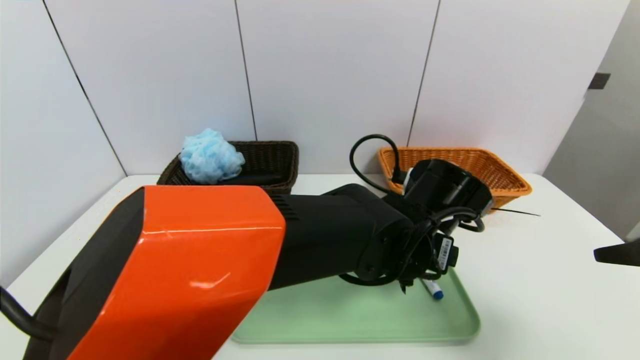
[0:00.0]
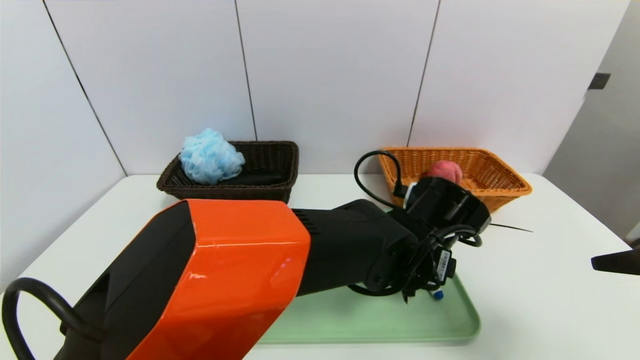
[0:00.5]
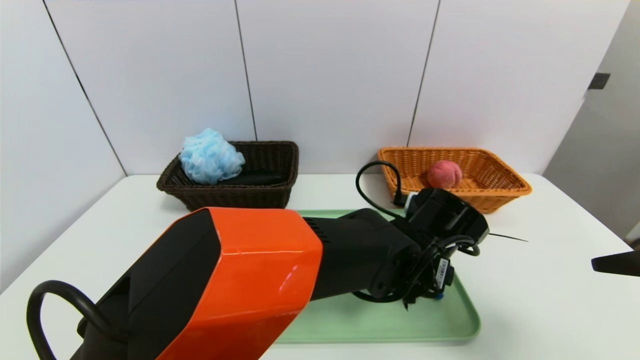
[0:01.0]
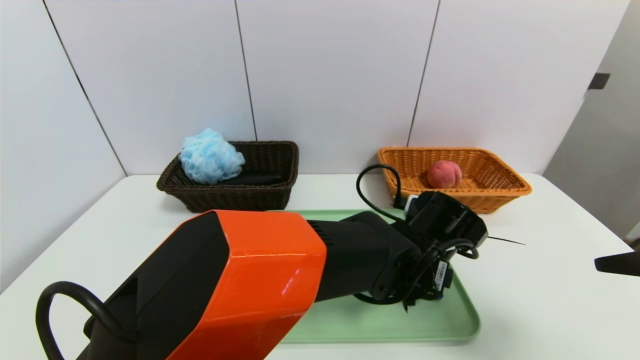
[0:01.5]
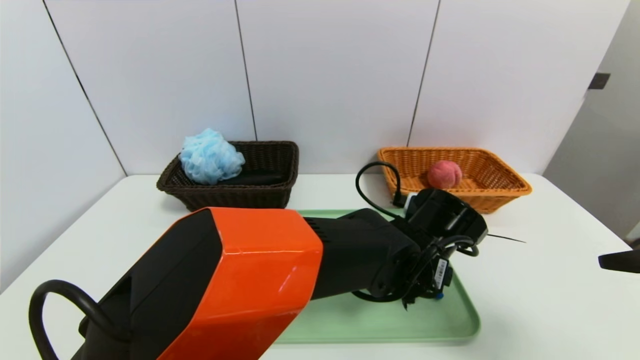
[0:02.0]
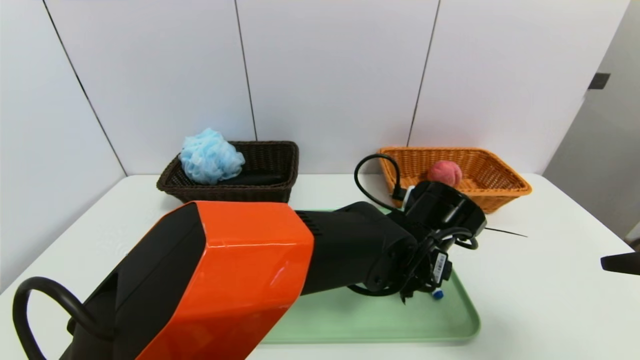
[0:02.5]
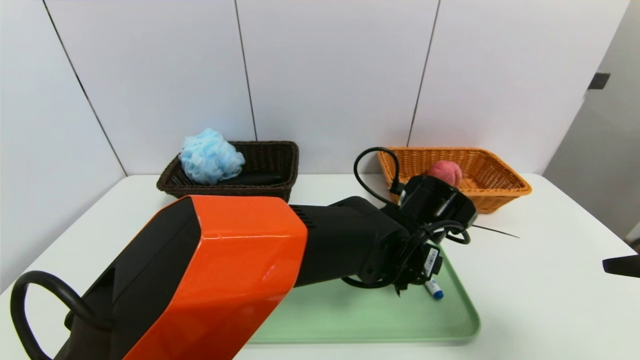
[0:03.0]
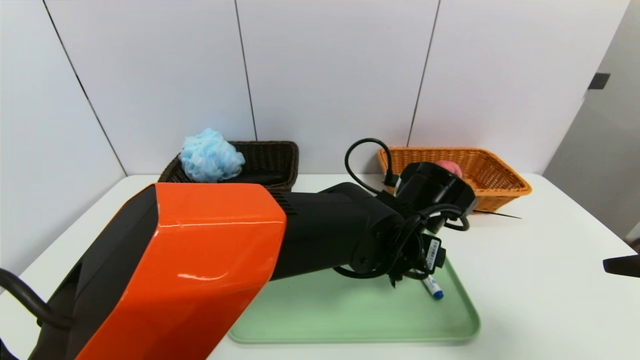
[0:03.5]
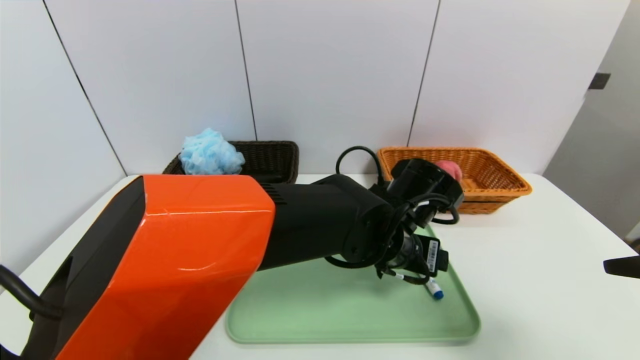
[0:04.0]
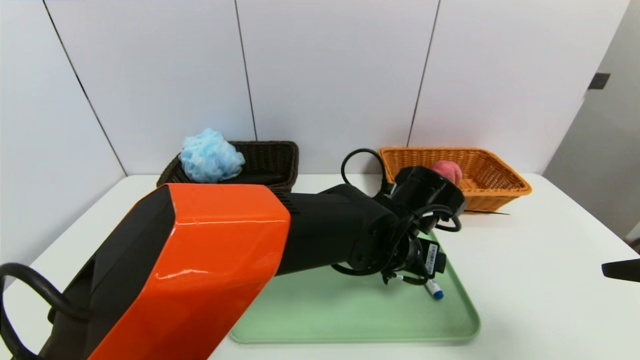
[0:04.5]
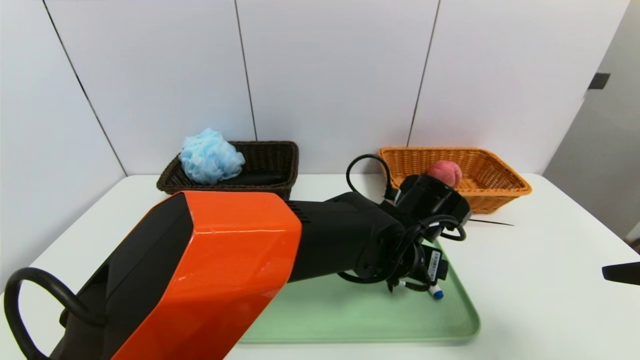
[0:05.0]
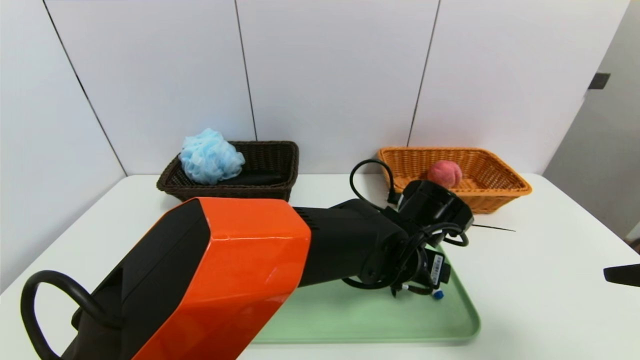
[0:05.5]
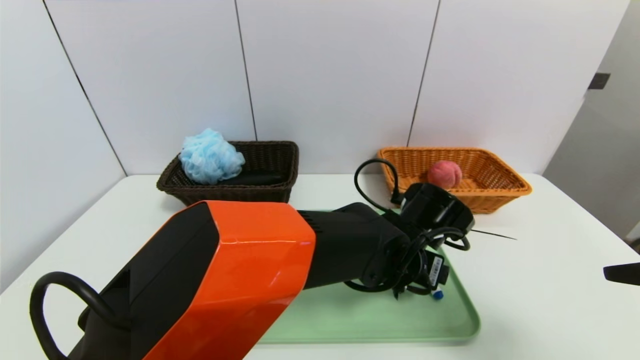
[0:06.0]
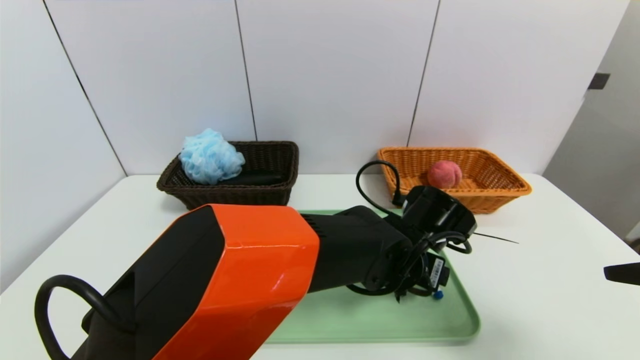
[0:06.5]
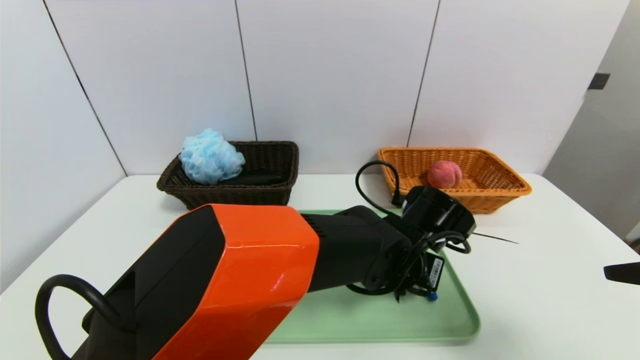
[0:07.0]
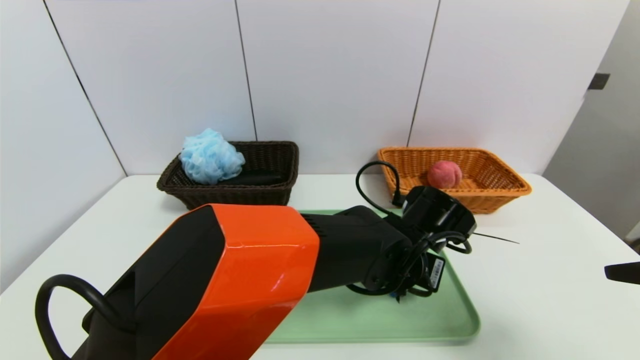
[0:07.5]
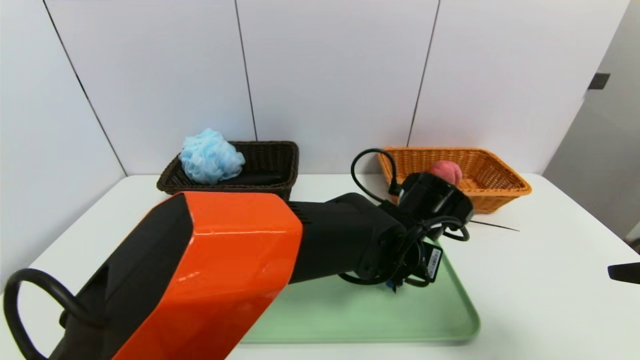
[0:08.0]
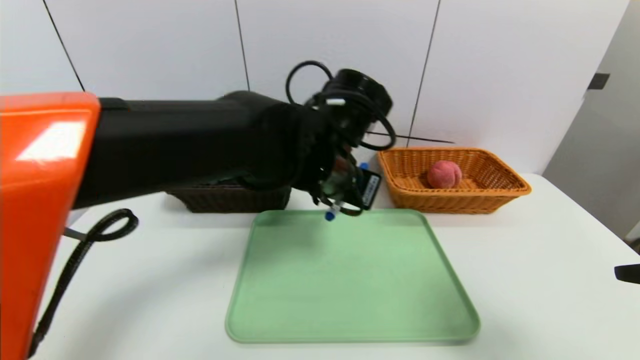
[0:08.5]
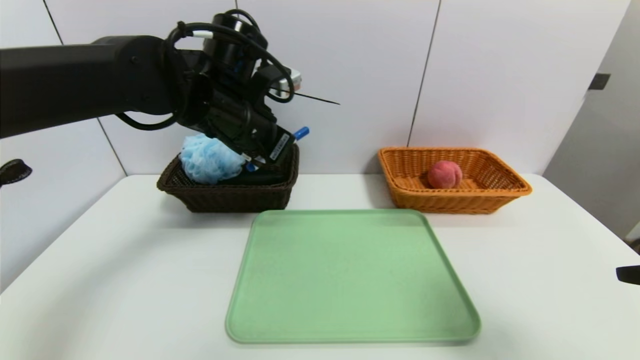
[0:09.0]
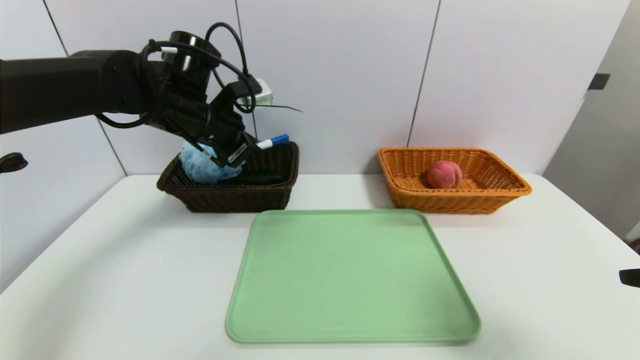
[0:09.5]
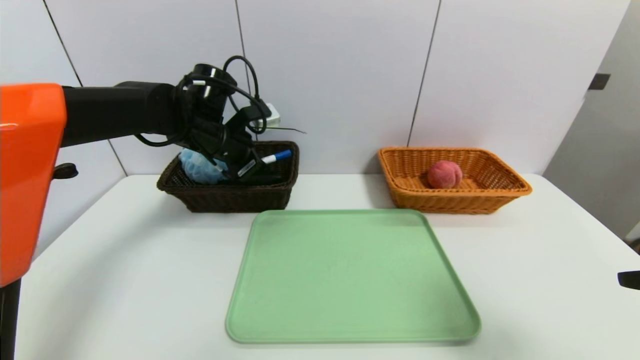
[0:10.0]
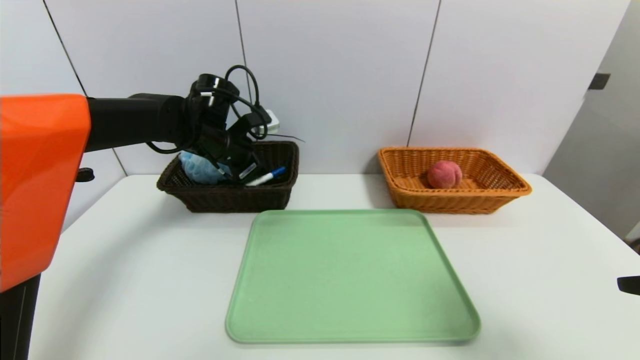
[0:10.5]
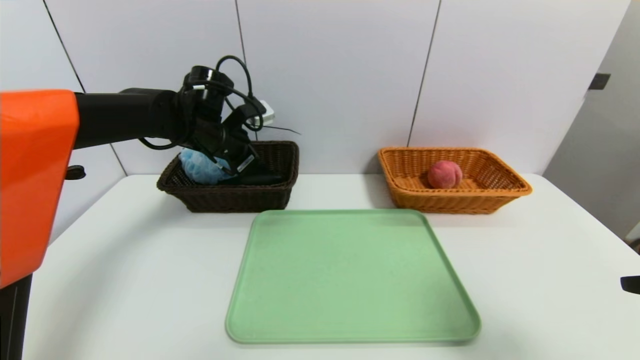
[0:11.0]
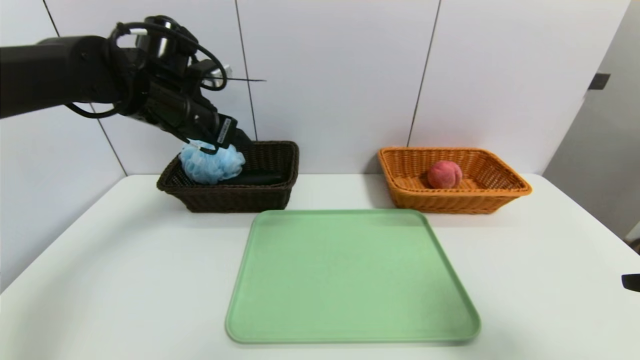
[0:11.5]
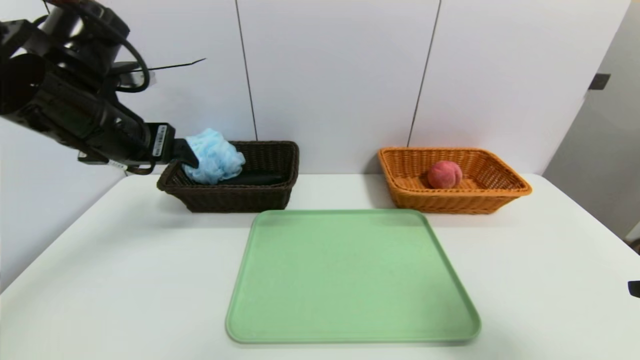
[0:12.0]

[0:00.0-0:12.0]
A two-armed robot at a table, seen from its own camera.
Task of the whole recording: place the food in the right basket with the right gripper, and place the non food items in the left basket with the left gripper.
Step, 0:00.0 to 0:11.0: Grasp the blue marker and put it in the left basket.
0:06.0 to 0:08.0: The left gripper closes its fingers.
0:08.0 to 0:10.0: The left gripper is displaced to the left and forward by about 30 cm.
0:10.0 to 0:12.0: The left gripper heads backward, upward and to the left, covering about 15 cm, and opens.

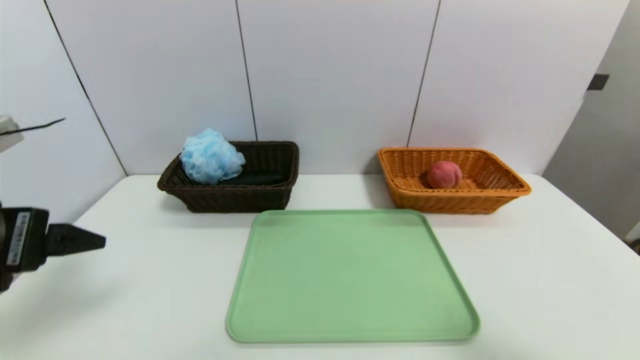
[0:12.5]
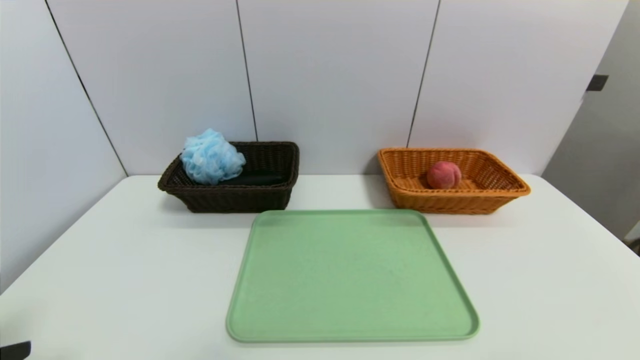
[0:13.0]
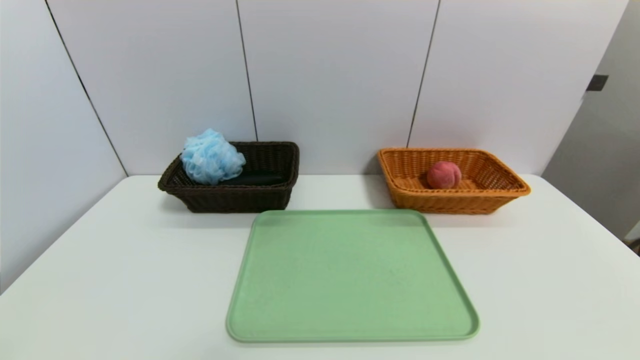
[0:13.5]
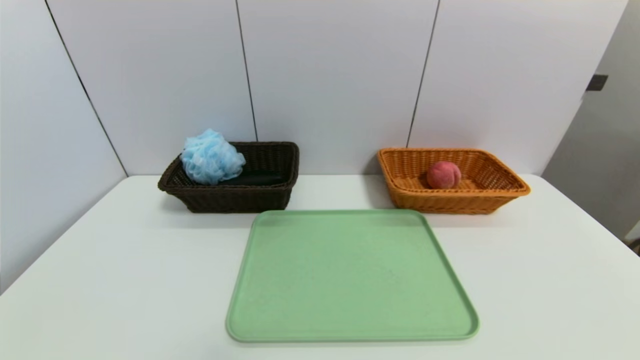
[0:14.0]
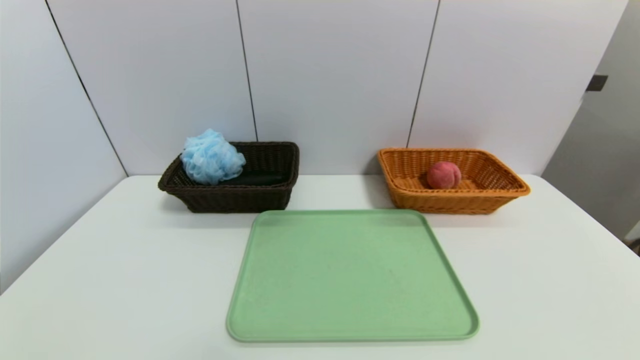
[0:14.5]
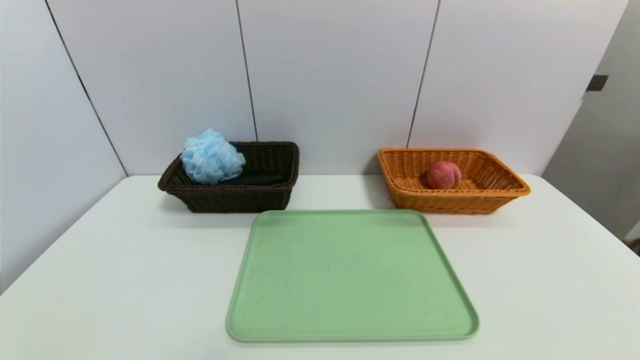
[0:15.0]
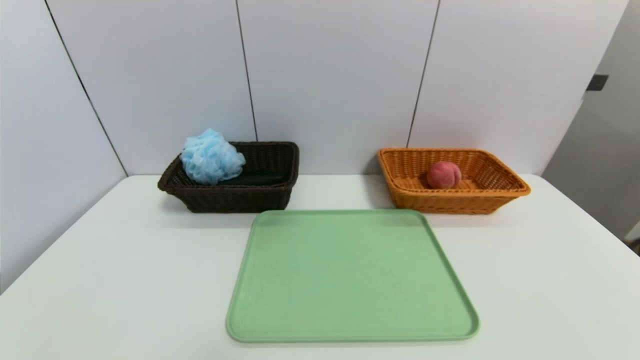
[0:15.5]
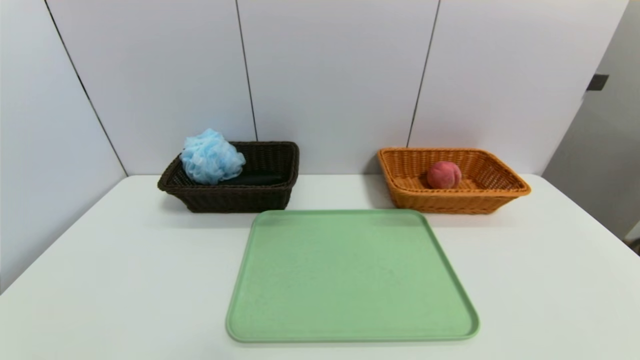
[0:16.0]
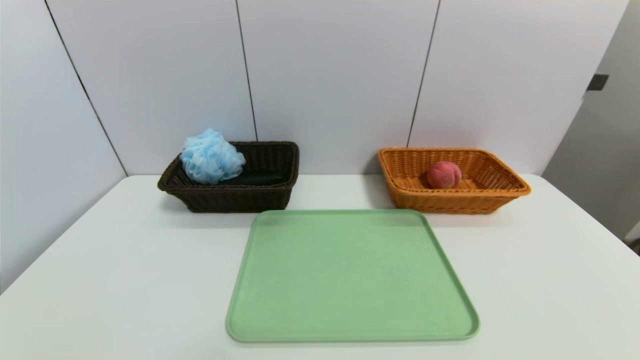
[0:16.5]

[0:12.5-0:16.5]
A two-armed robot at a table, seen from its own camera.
Task of the whole recording: place the food in the right basket with the right gripper, and place the non food items in the left basket with the left gripper.
0:12.5 to 0:14.5: The left gripper travels backward and downward by some 25 cm; the right gripper goes about 15 cm backward and downward.
